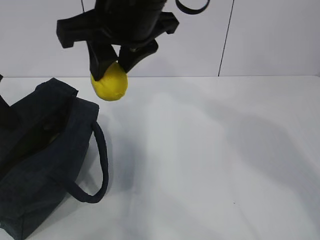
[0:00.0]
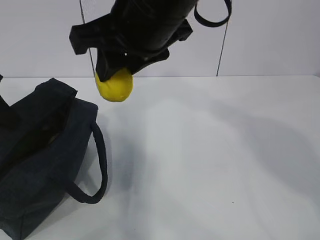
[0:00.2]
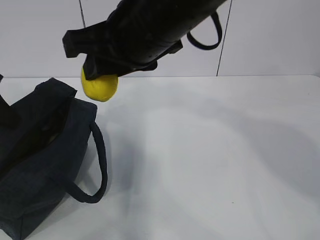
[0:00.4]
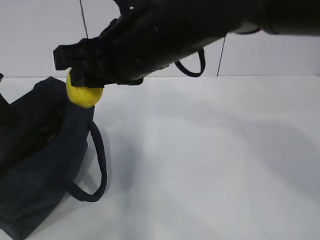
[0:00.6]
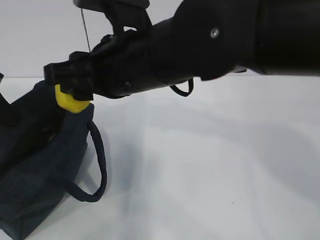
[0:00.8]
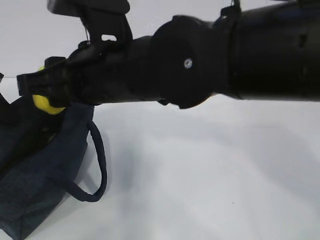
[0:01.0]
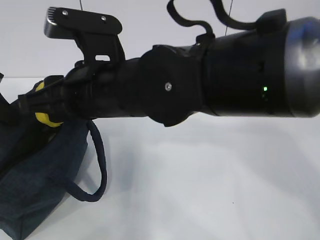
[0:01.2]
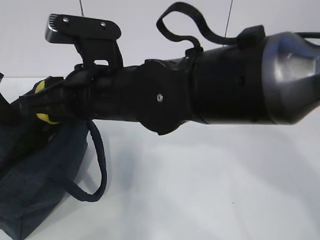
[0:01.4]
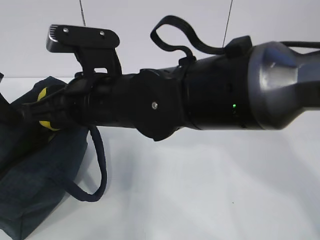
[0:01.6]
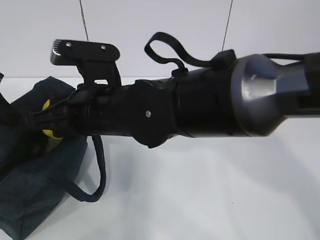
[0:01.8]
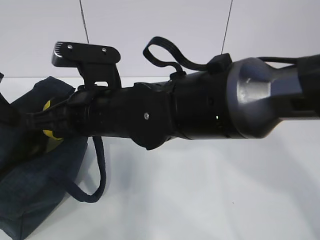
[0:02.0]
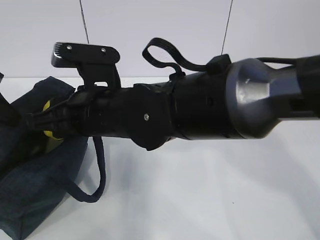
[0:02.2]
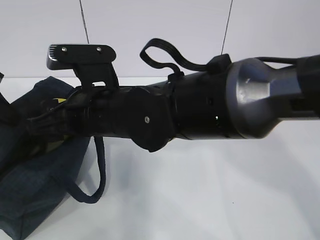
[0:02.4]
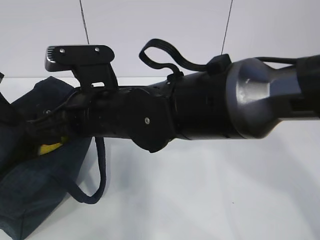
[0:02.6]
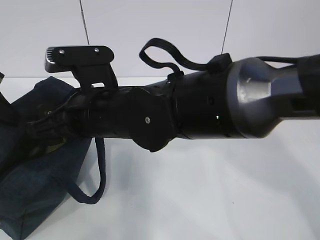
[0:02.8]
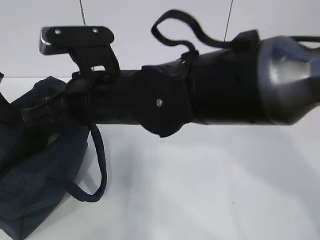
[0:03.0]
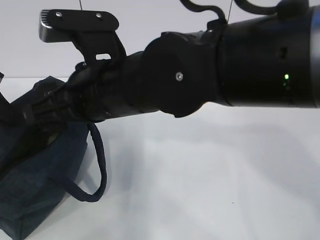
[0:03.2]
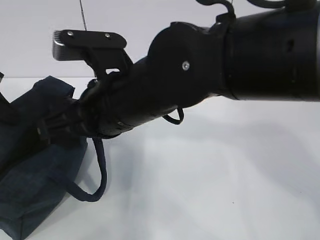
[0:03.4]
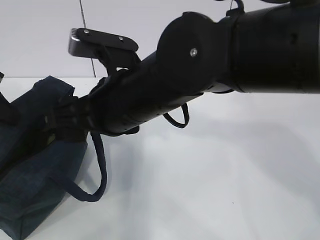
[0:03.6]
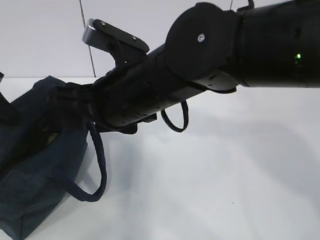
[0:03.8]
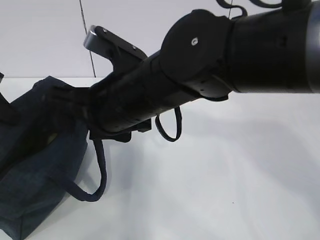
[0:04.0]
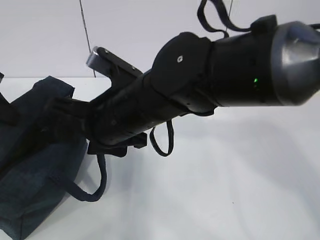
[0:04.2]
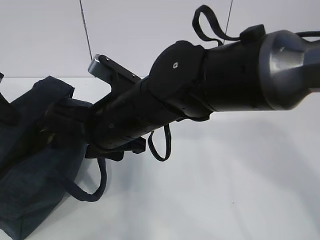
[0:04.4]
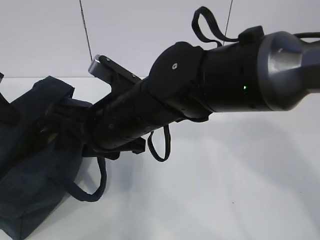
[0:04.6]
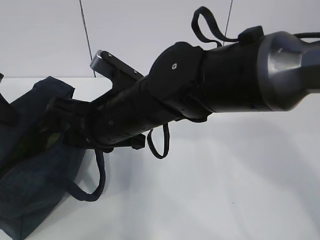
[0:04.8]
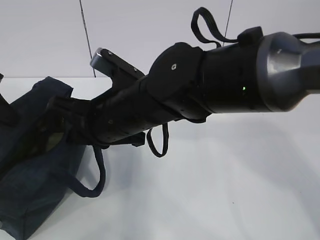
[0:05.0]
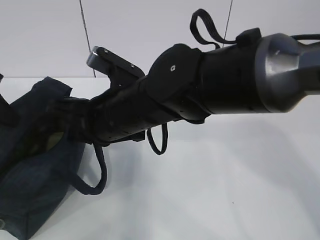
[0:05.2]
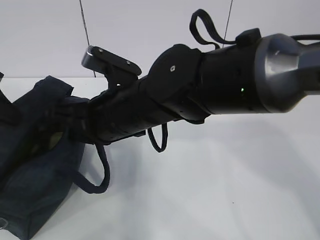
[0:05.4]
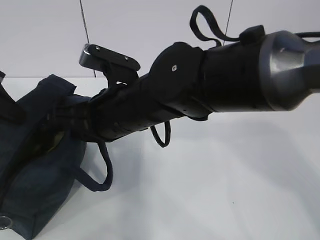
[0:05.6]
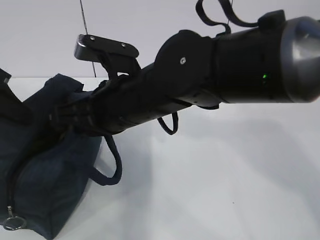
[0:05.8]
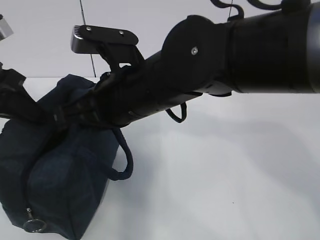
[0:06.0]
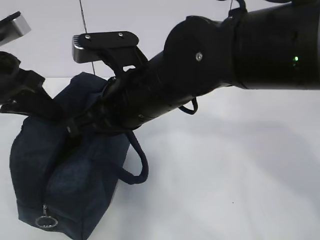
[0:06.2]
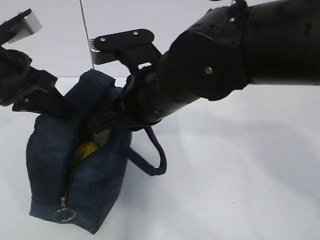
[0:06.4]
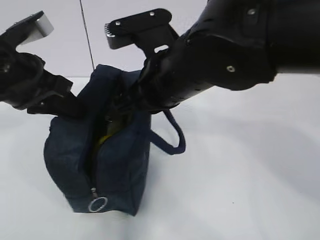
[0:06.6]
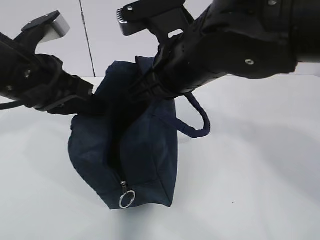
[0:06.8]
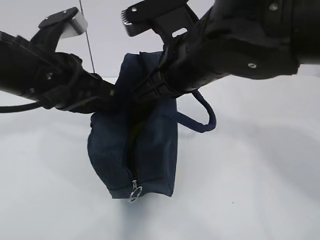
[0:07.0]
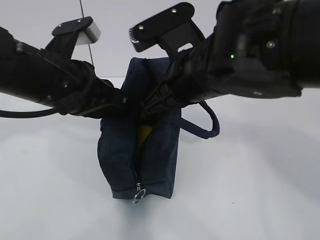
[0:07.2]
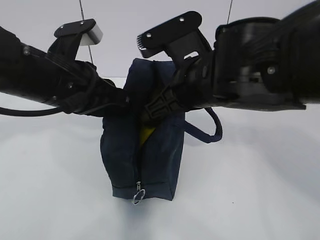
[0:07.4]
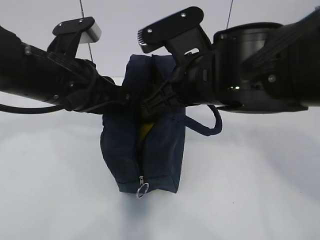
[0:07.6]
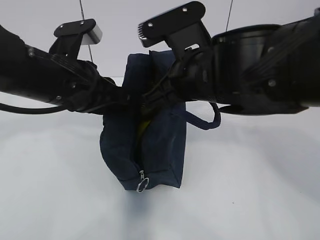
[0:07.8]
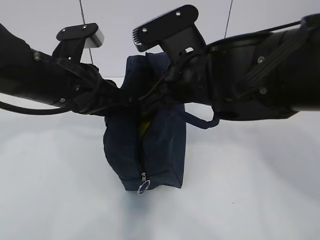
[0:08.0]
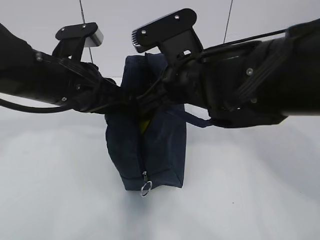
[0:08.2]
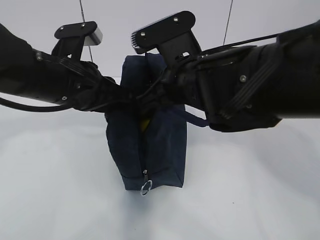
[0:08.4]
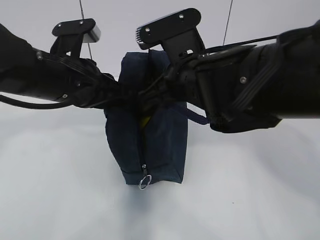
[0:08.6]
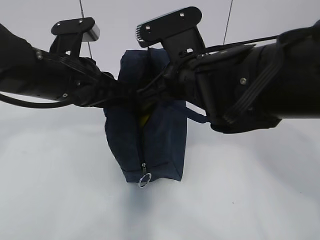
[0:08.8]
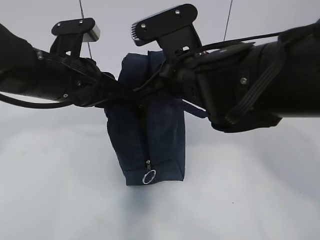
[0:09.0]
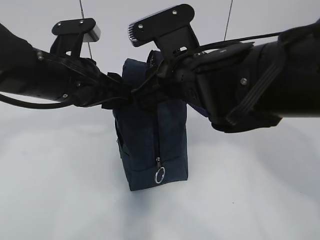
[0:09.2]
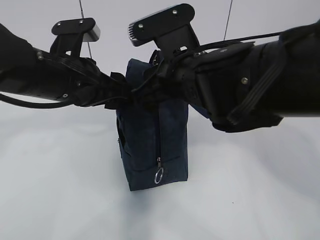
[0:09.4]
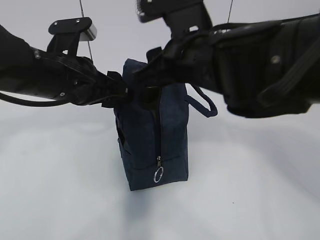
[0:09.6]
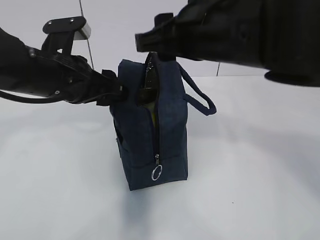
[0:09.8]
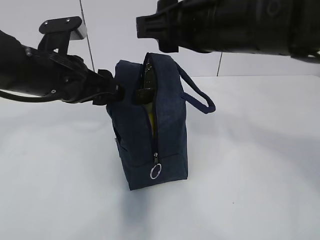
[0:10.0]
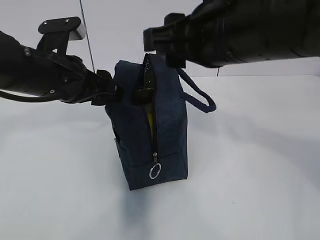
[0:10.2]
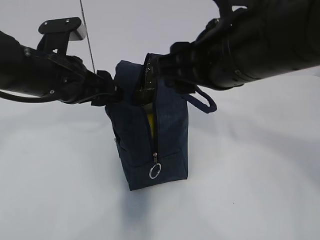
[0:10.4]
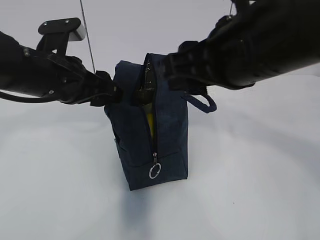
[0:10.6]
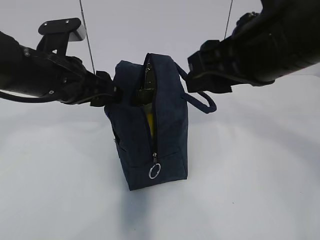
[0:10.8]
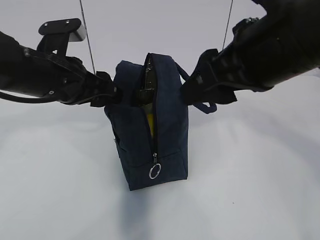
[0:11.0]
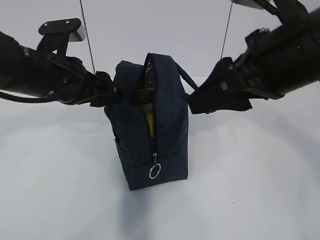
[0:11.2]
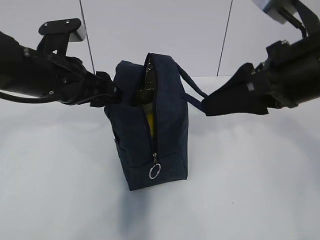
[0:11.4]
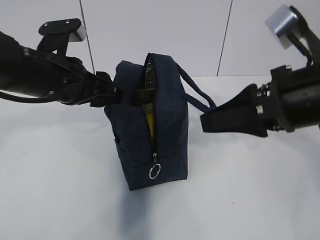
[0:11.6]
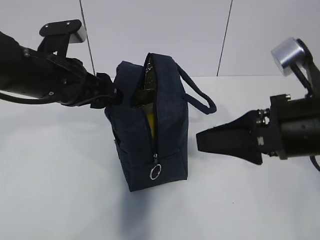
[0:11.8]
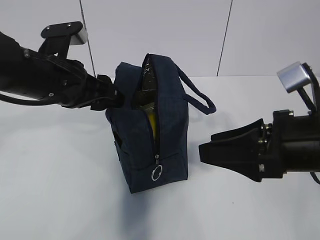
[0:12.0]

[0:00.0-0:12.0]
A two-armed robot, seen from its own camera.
0:00.0 to 0:01.6: The right gripper shifts about 10 cm downward.
0:01.6 to 0:03.0: The right gripper opens up.
0:04.4 to 0:06.0: The right gripper closes up.
0:06.0 to 0:07.6: The two grippers go approximately 10 cm to the right.
0:07.6 to 0:09.0: The grippers move only a little.
0:09.0 to 0:10.4: The right gripper moves upward and backward, about 10 cm, and opens; the left gripper opens up.
0:10.4 to 0:12.0: The right gripper is displaced downward and to the right by roughly 15 cm.

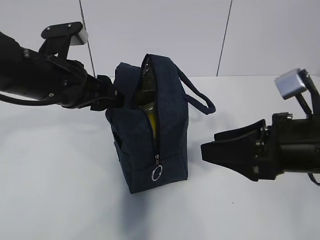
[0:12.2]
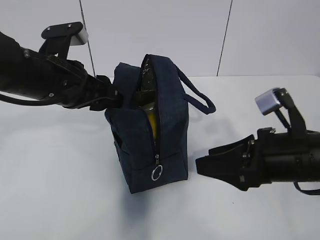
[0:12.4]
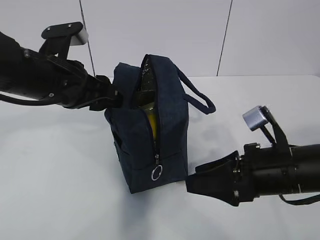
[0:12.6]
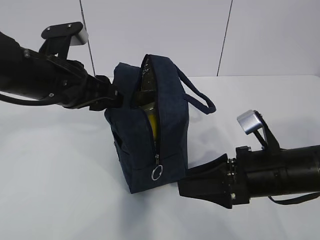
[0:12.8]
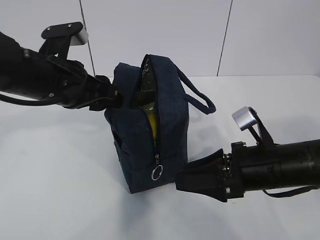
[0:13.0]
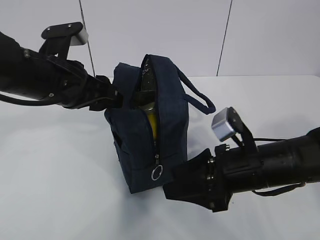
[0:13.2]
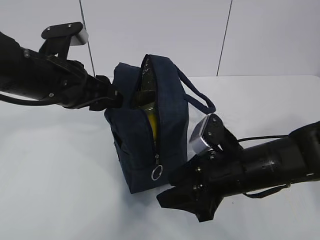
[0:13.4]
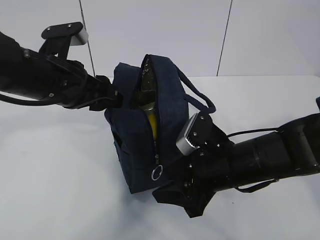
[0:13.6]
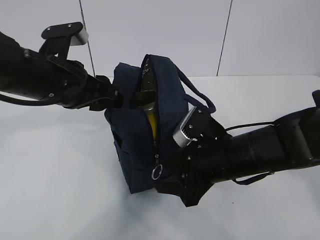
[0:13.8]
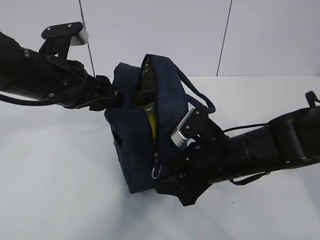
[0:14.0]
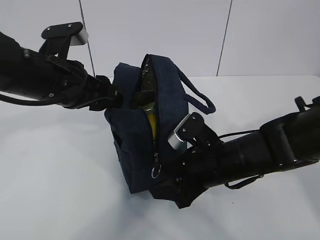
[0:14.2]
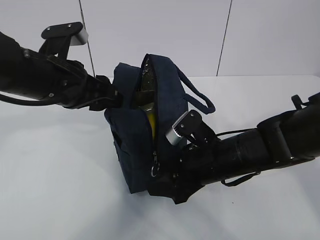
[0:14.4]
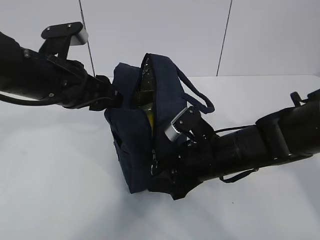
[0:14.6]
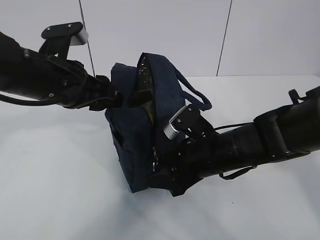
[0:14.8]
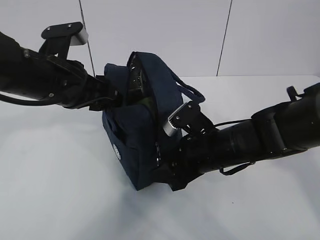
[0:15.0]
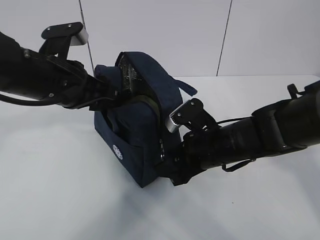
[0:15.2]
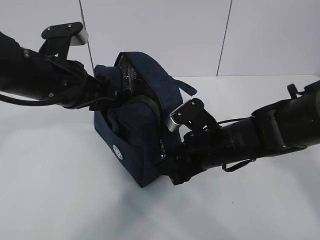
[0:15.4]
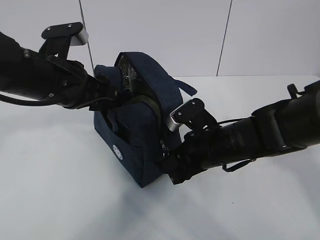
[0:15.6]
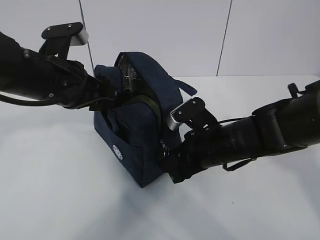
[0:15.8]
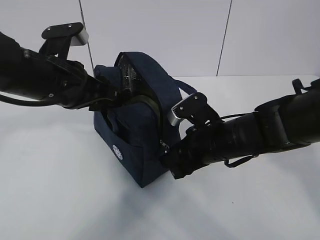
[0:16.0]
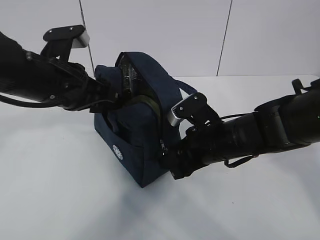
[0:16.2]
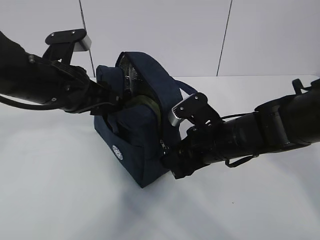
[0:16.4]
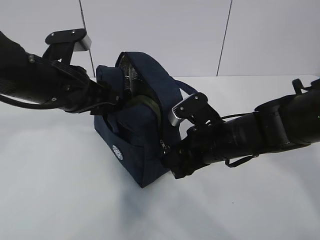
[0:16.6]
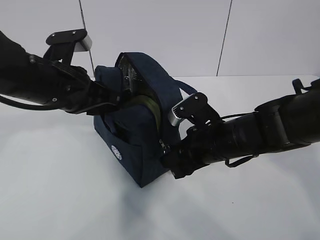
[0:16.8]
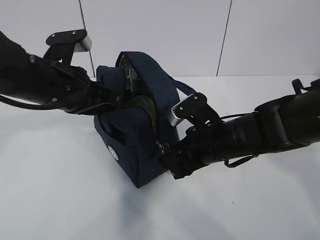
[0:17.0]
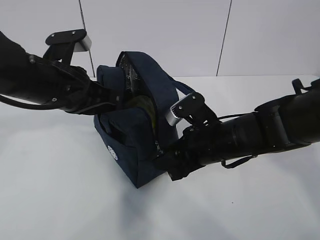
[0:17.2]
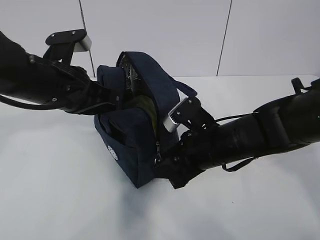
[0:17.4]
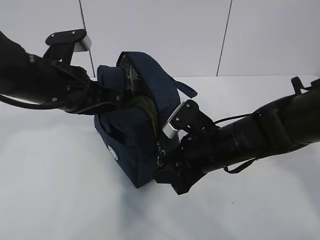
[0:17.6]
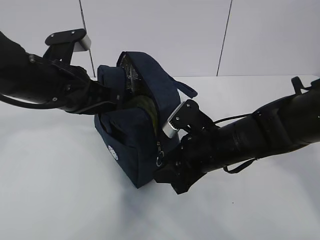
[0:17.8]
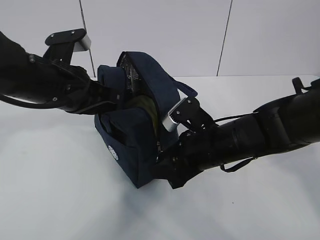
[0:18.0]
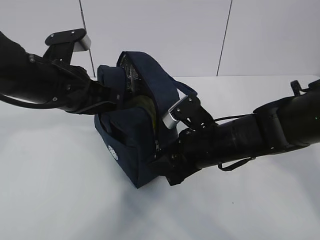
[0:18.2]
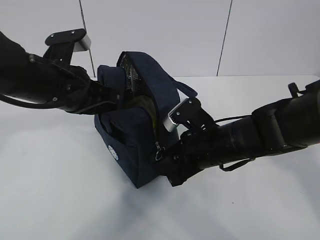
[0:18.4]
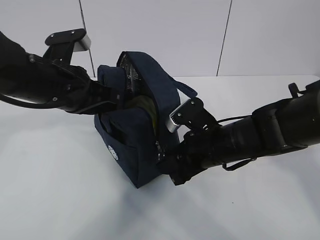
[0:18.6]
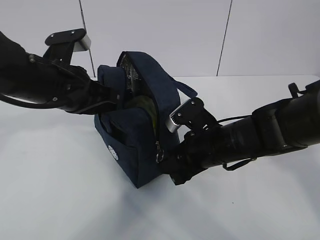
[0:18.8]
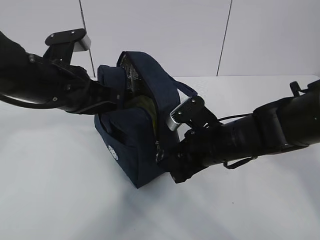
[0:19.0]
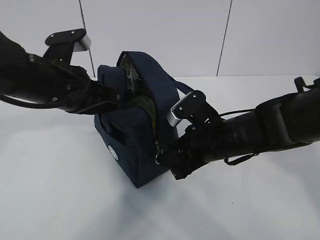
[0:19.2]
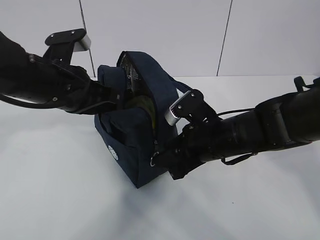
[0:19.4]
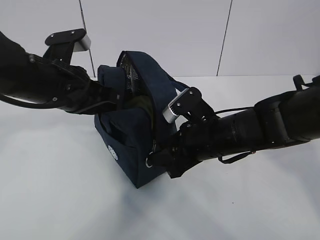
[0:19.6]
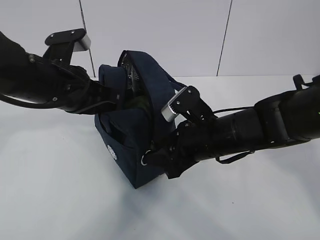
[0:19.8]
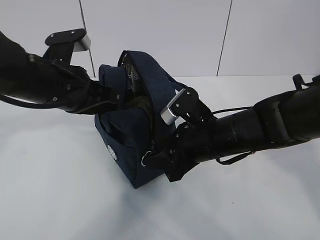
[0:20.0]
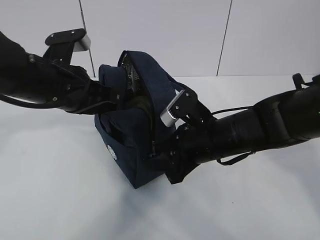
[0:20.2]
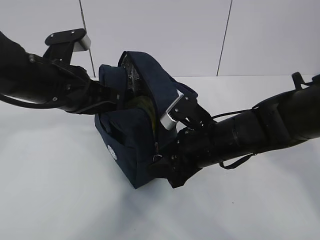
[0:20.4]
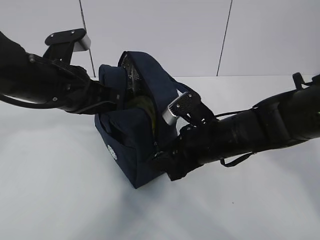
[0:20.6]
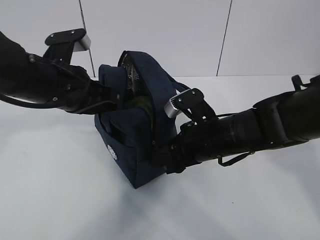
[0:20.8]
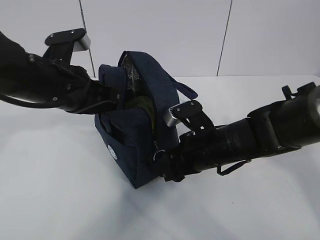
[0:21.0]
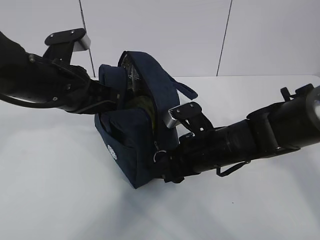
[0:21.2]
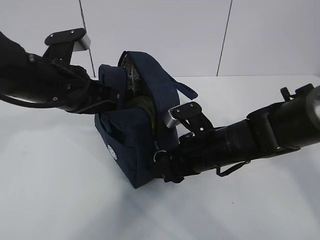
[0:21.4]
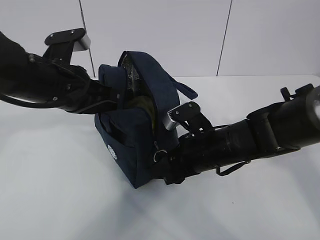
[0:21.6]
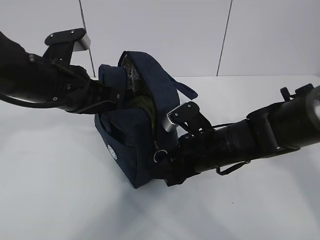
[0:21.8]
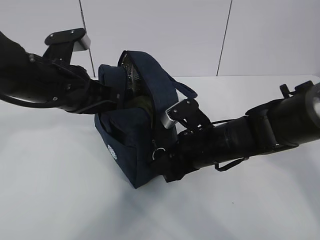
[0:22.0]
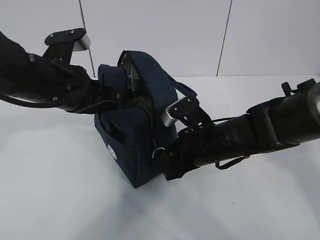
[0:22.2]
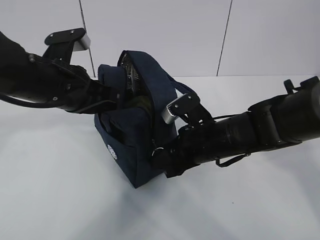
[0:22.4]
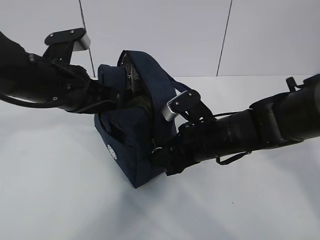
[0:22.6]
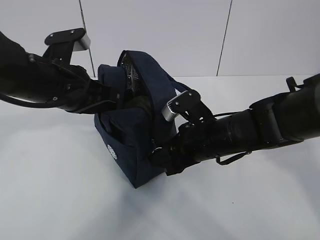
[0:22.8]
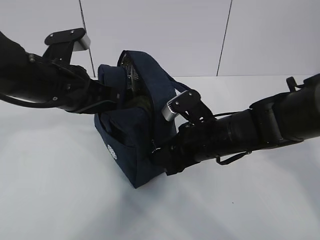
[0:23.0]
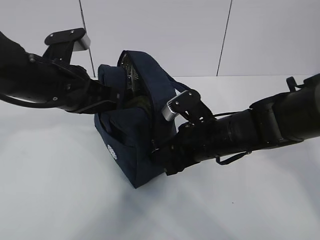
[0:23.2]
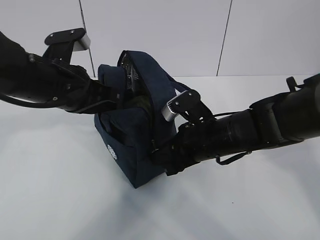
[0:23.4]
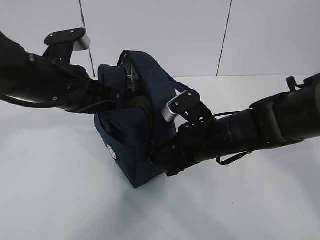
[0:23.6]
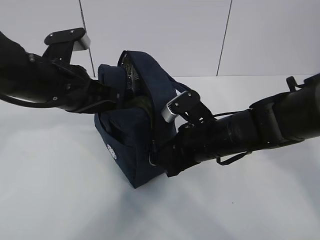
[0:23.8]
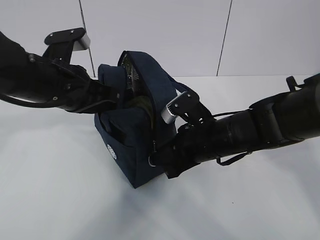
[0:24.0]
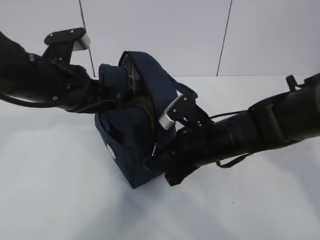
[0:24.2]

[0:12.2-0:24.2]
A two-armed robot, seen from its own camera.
0:12.2 to 0:13.8: The right gripper heads downward, to the left and forward, covering roughly 10 cm.
0:13.8 to 0:15.2: The grippers stay close to where they were, moving slightly.
0:15.2 to 0:16.6: Both grippers stay put.
0:16.6 to 0:18.2: The left gripper closes.
0:18.2 to 0:22.6: The grippers make only small movements.
0:22.6 to 0:24.2: The right gripper closes.
